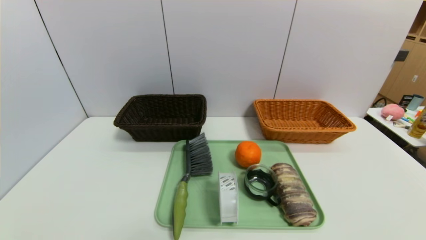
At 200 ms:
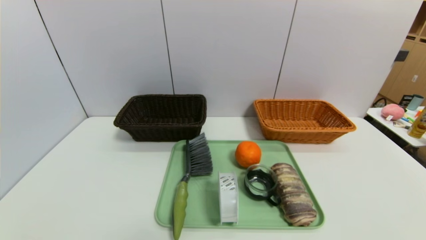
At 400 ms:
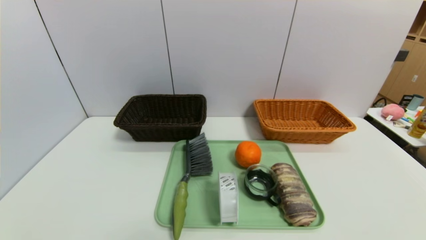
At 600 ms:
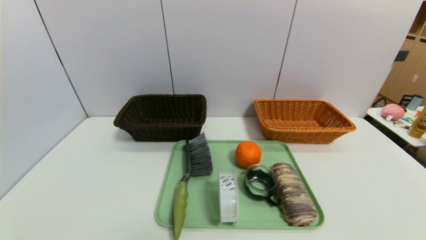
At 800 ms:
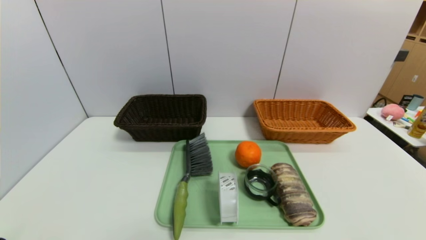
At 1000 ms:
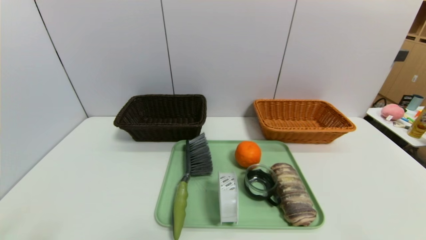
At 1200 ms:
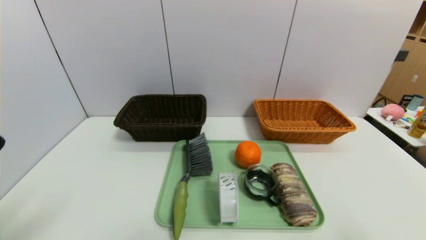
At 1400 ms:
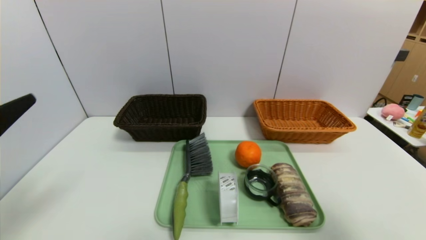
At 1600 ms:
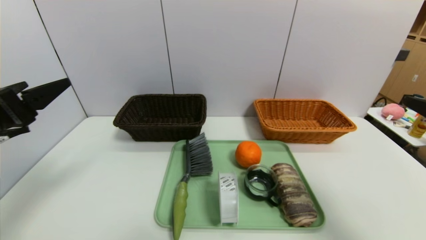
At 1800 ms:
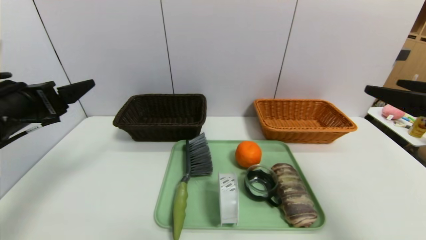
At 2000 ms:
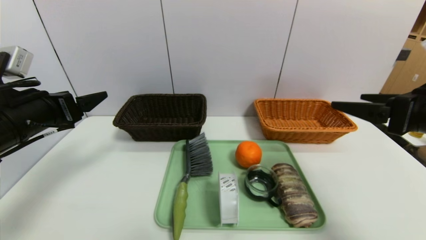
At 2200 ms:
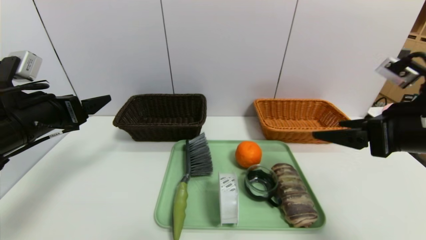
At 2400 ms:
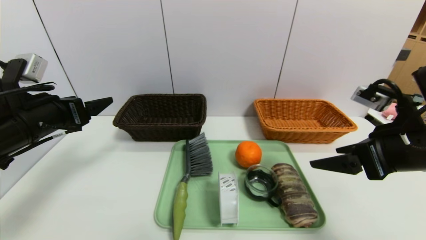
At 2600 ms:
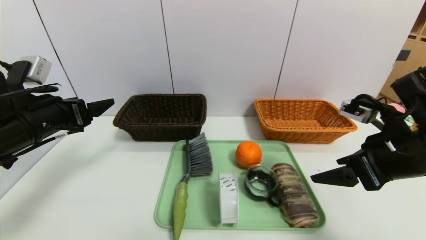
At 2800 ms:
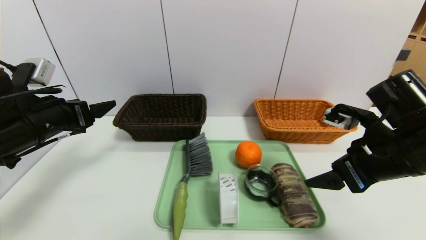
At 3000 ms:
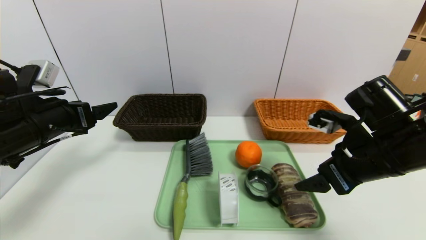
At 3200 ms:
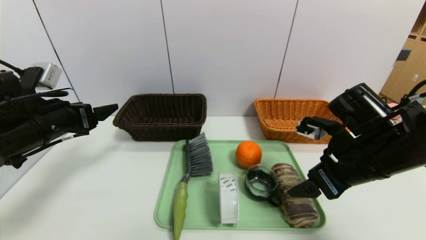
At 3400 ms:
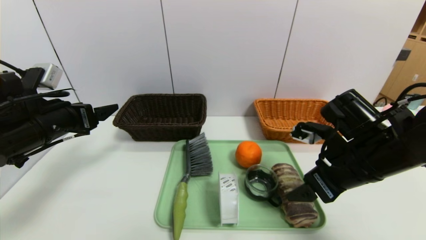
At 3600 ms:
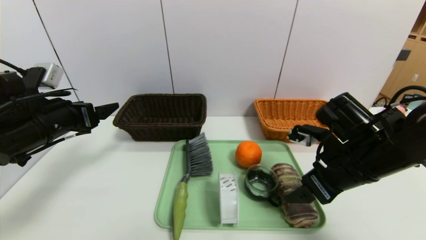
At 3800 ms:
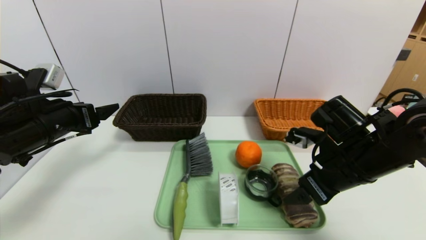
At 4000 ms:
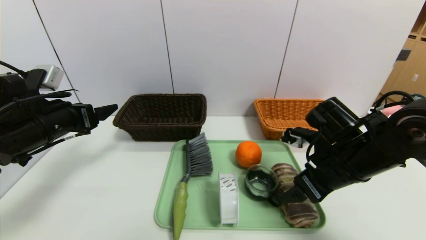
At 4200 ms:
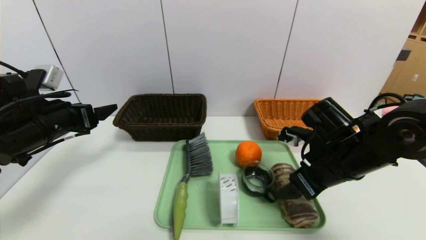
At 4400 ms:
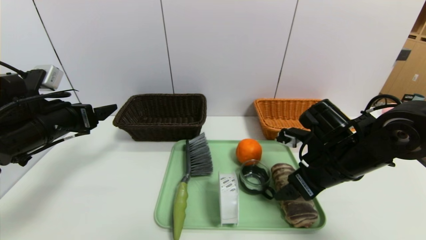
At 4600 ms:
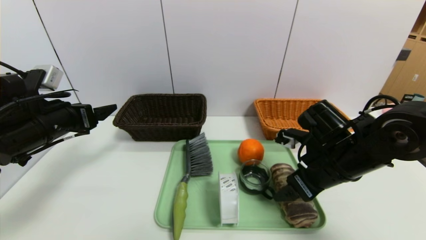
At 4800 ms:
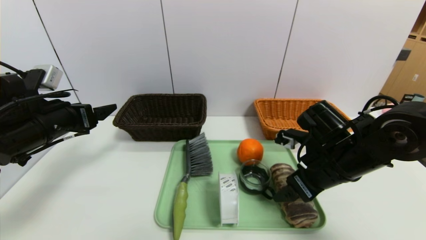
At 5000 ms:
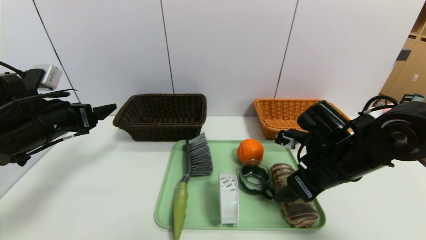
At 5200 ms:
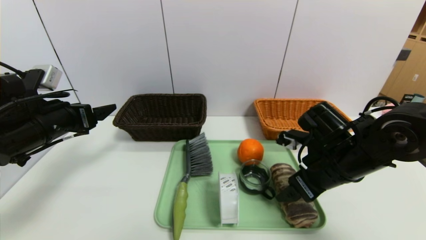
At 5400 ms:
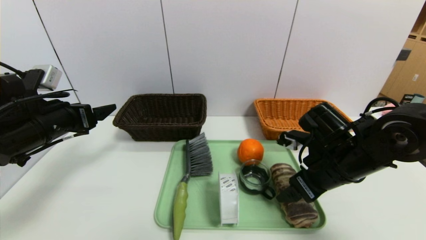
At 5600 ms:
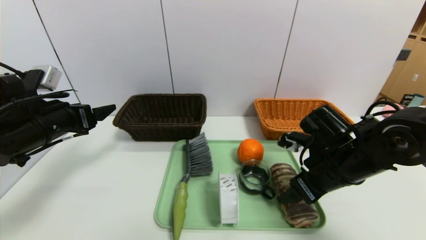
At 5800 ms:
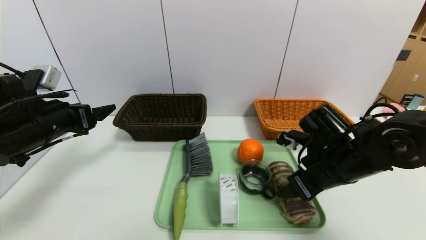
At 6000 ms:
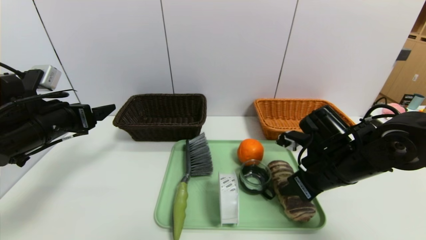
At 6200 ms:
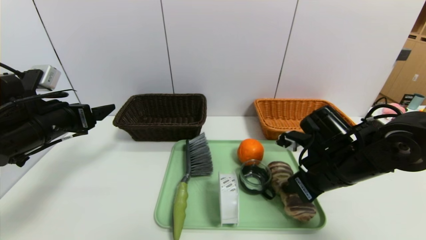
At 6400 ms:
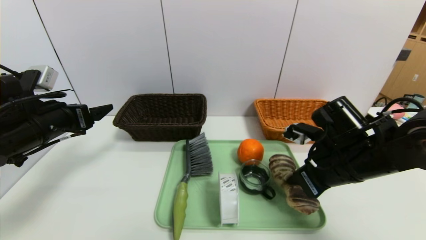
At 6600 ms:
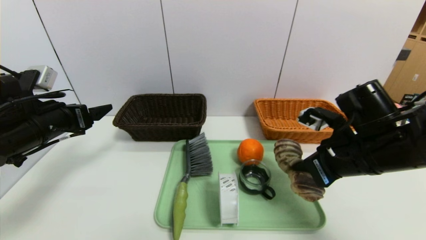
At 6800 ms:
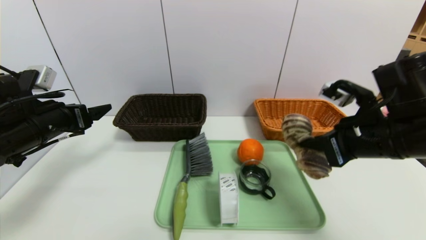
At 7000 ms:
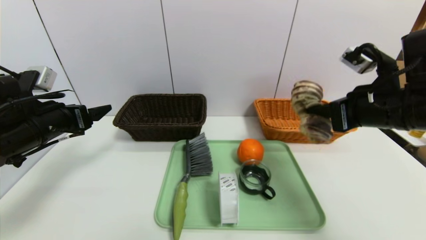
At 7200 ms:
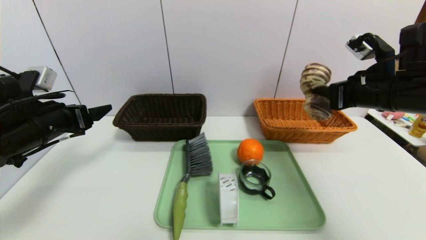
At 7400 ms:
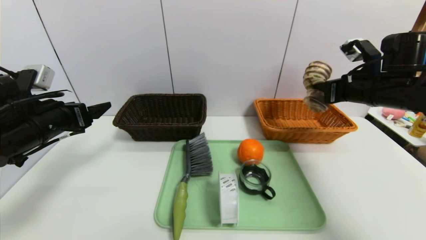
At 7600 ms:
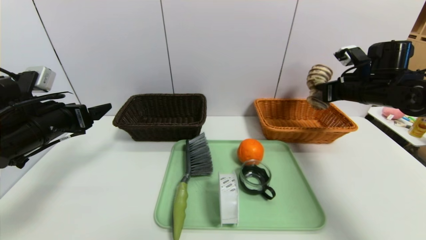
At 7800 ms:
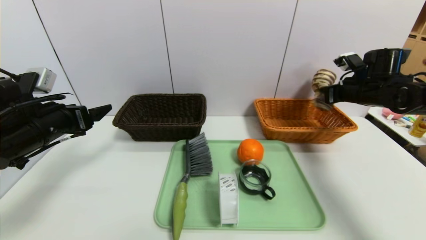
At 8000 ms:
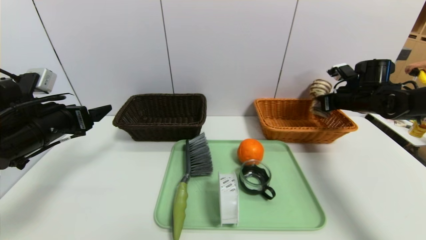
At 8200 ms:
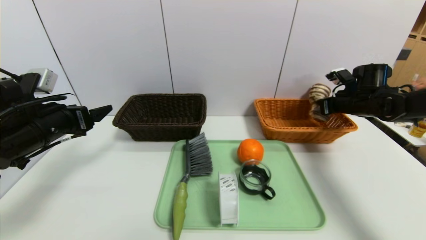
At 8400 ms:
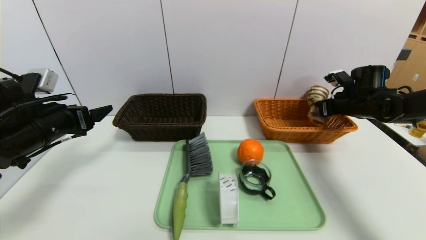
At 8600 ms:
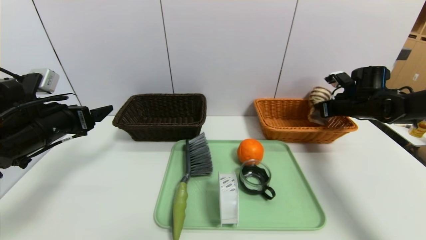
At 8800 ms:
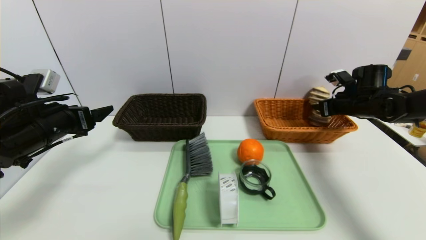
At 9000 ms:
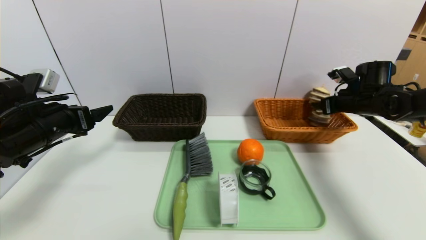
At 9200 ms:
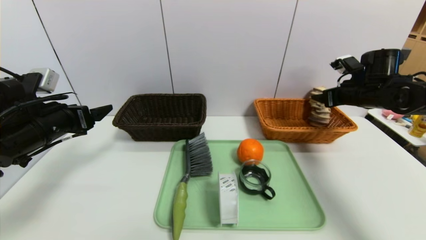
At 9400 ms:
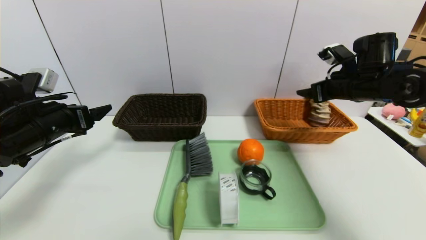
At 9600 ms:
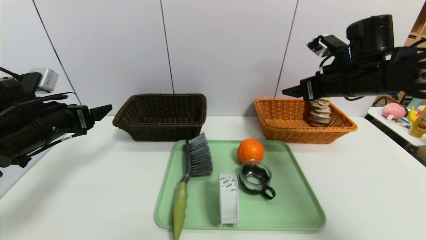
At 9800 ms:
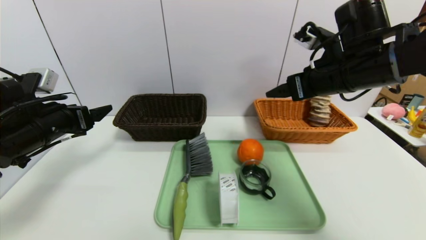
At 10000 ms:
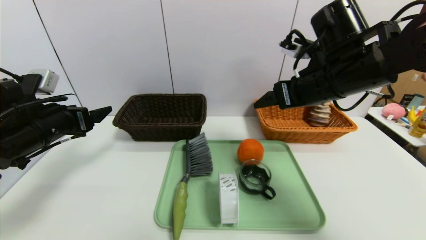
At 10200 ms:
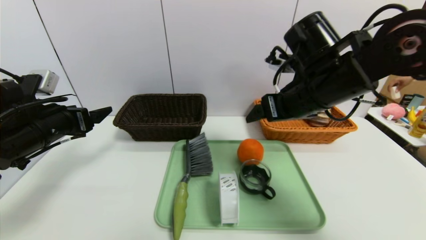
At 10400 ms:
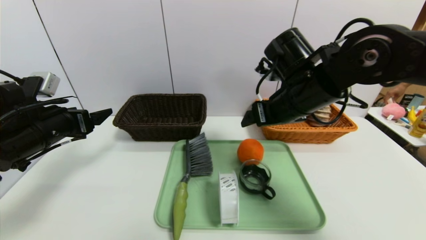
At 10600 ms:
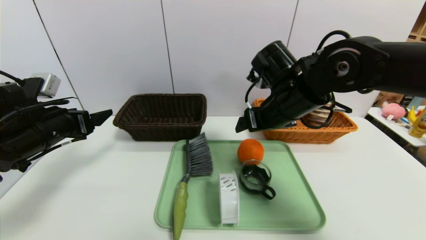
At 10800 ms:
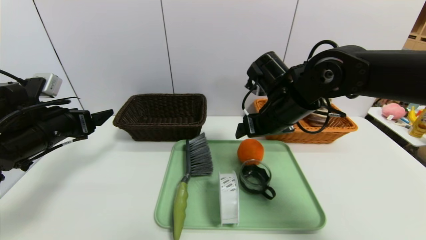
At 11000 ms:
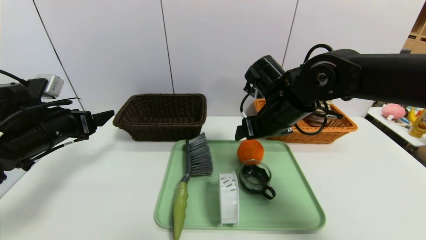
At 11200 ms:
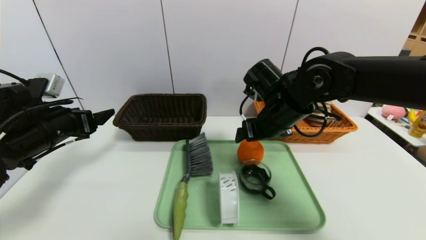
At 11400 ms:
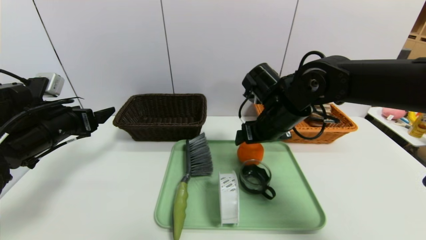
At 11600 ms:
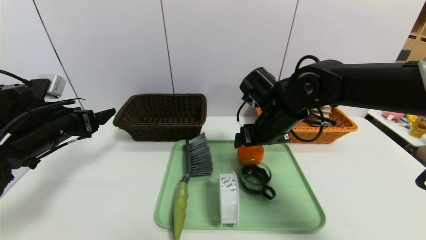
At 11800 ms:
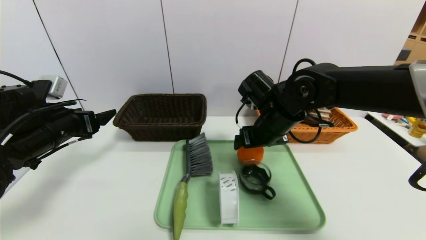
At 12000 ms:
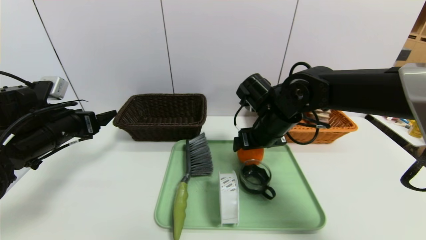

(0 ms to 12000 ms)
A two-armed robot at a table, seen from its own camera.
Task of the whole recording: place the food in the right basket with the right gripper, and place the non food items in the left basket with the left gripper.
Step, 0 ms - 9200 ms: Grasp the long bread and put it in the right basket.
0 ms - 1600 ms: The grippers both shift upward and forward by about 25 cm.
1600 ms - 3000 ms: The right gripper travels forward, to the left and downward by about 15 cm; the left gripper is displaced forward by roughly 10 cm.
3000 ms - 4400 ms: The right gripper changes place by about 5 cm.
4400 ms - 6000 ms: The right gripper closes up.
6000 ms - 7600 ms: The right gripper shifts about 20 cm forward, to the right and upward, and closes.
7600 ms - 9000 ms: The right gripper changes place by approximately 5 cm, and opens its fingers.
9000 ms - 10400 ms: The right gripper heads to the left and backward, covering some 25 cm.
10400 ms - 12000 ms: The right gripper travels downward by roughly 5 cm.

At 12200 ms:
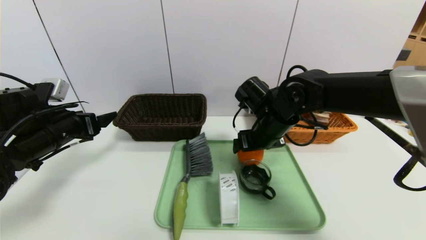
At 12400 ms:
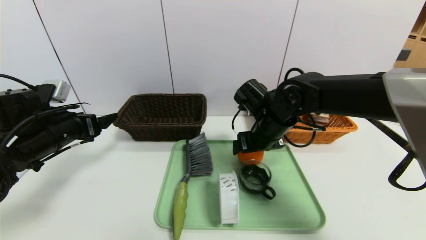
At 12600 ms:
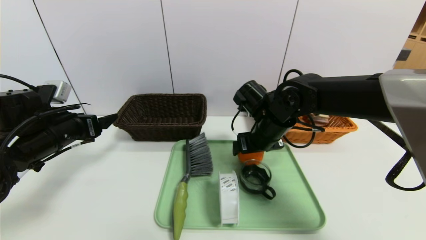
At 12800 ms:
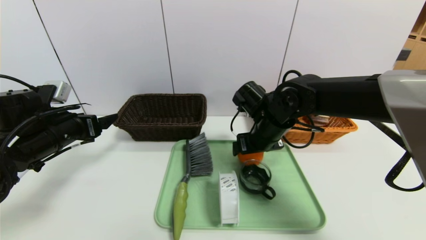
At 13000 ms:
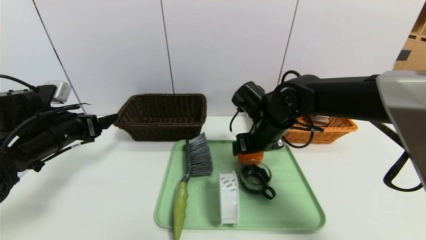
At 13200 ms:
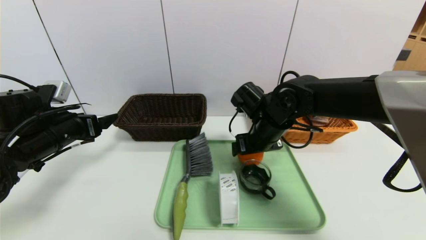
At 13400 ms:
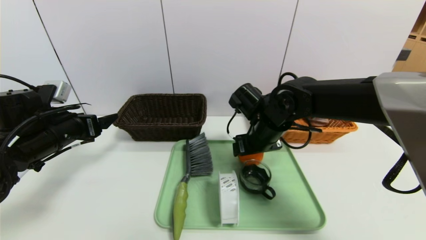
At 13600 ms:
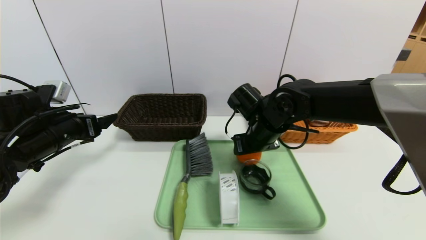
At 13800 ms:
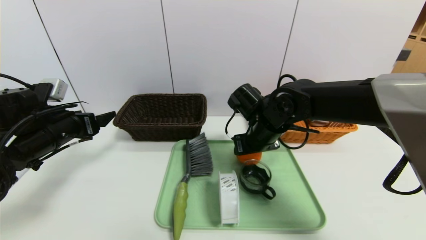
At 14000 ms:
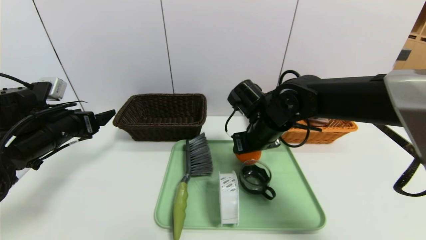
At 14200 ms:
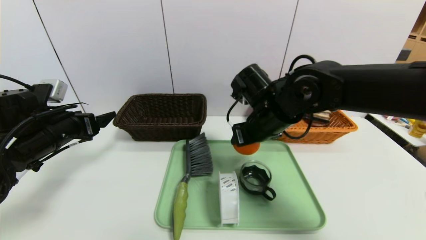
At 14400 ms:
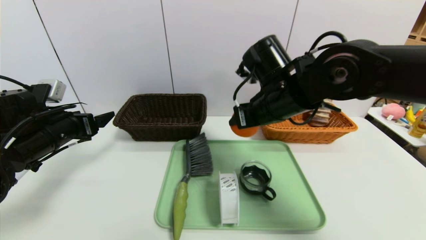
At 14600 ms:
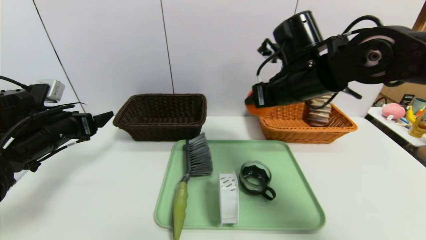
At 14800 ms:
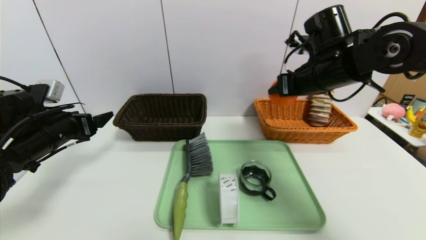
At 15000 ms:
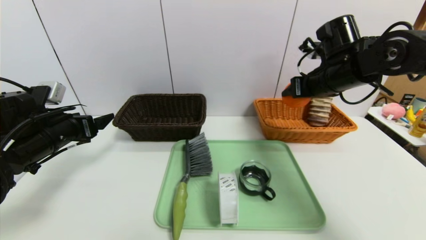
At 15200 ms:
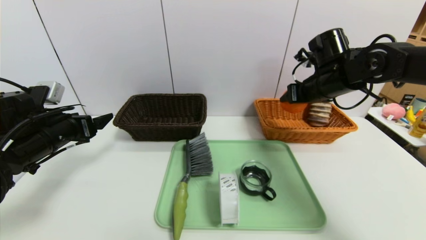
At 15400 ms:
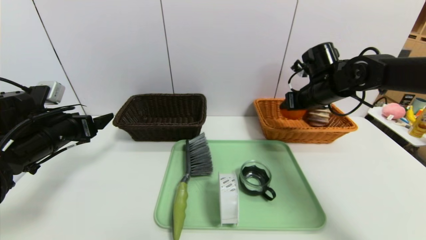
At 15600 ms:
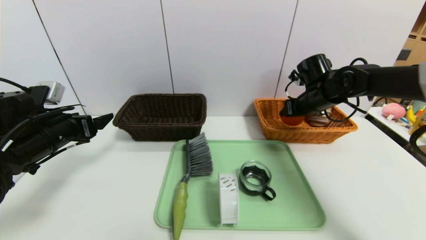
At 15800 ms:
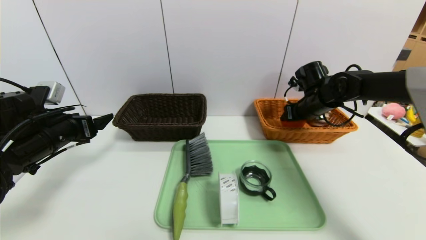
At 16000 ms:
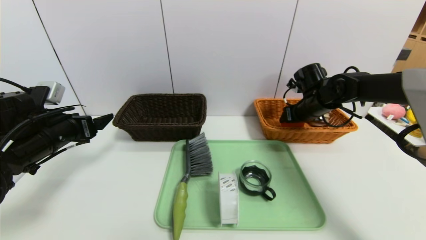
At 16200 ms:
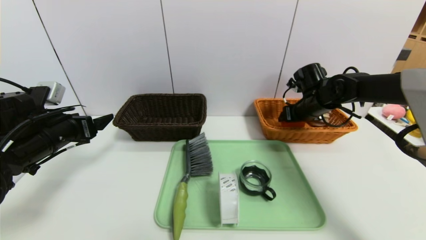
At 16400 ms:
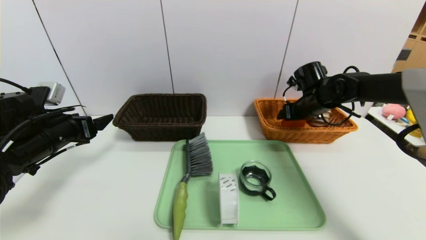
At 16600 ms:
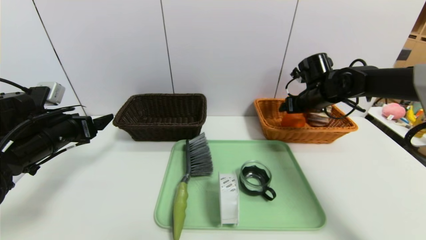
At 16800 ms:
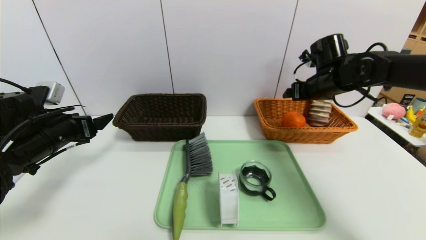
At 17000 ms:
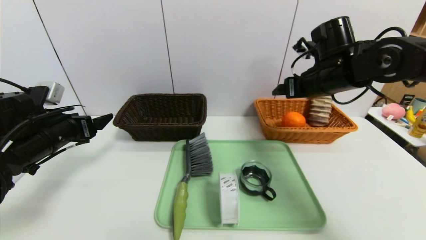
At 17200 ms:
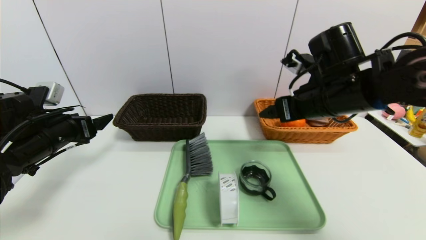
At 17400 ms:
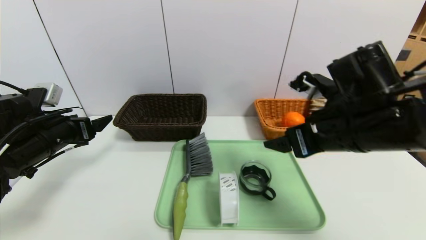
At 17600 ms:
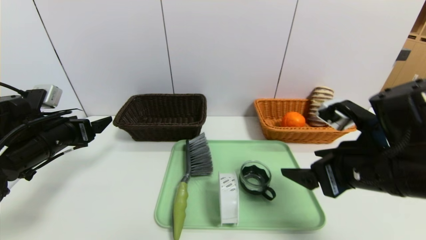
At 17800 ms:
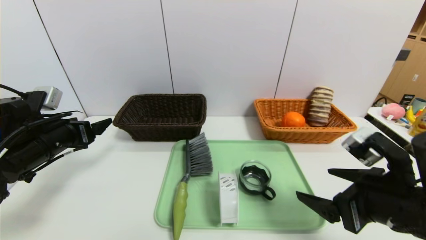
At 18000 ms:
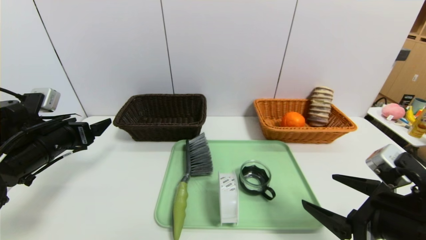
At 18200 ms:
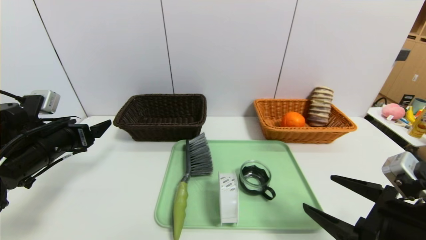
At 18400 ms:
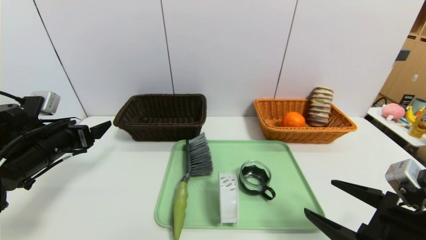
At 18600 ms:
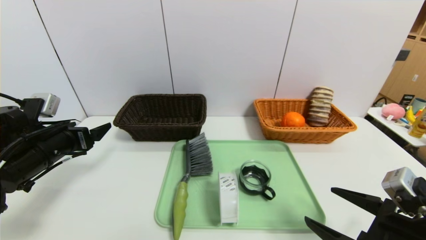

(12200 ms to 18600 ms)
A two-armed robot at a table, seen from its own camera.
Task of the whole recording: place the food in the right basket with the right gripper, and place the non food items in the left basket with the left gripper.
Step, 12200 ms - 17000 ms: Grasp the orange and put it in the right basket.
12200 ms - 13800 ms: The grippers move only a little.
13800 ms - 15400 ms: The right gripper goes some 15 cm to the right and forward.
15400 ms - 17000 ms: The right gripper goes roughly 10 cm backward and upward.
17000 ms - 18600 ms: The right gripper is displaced backward and downward by approximately 30 cm.
